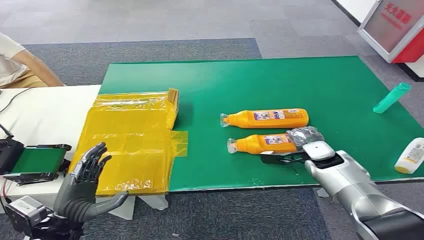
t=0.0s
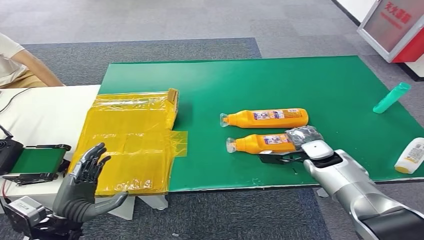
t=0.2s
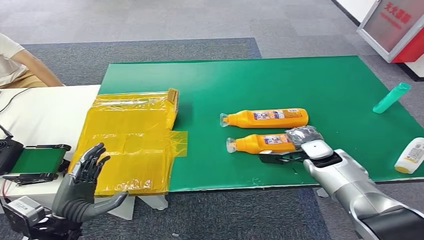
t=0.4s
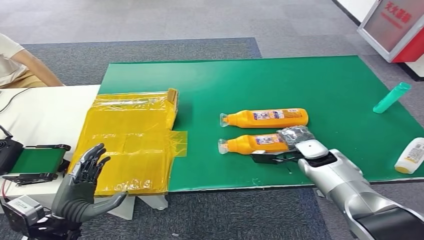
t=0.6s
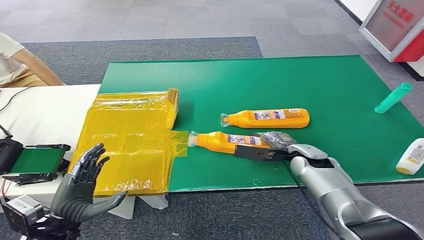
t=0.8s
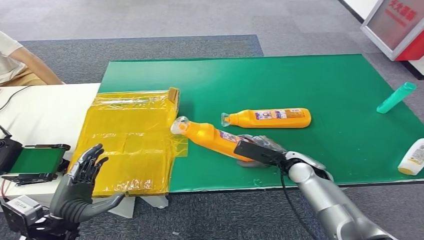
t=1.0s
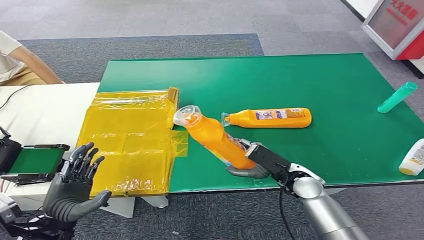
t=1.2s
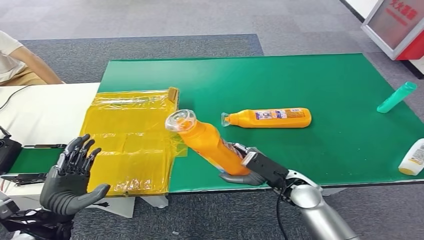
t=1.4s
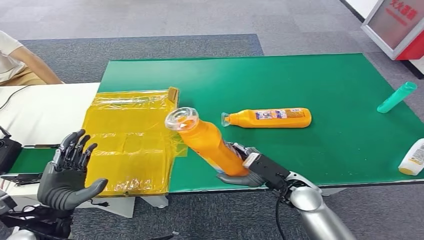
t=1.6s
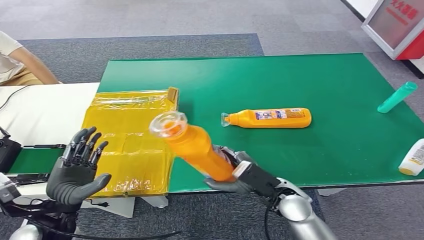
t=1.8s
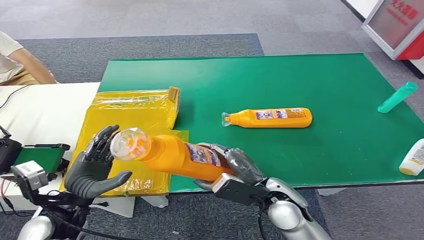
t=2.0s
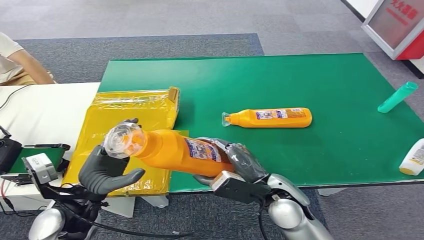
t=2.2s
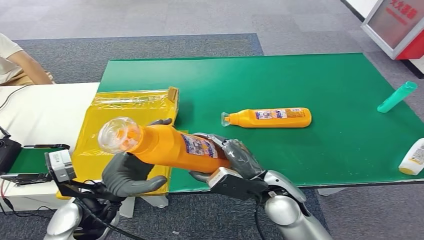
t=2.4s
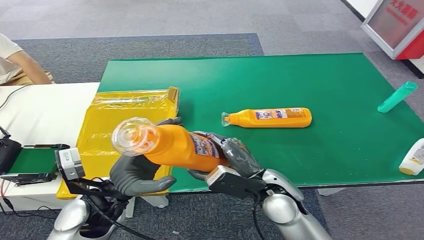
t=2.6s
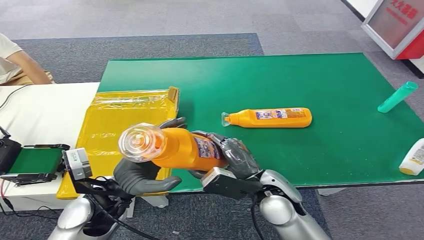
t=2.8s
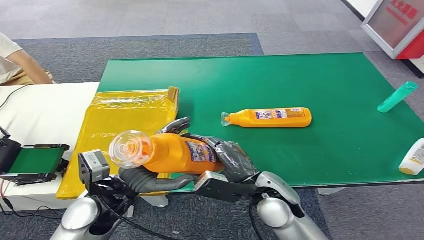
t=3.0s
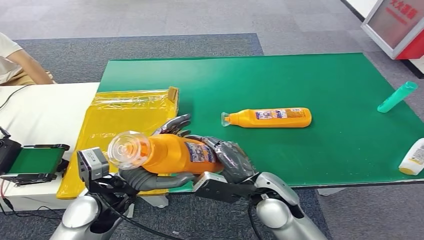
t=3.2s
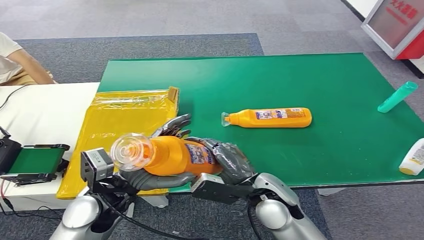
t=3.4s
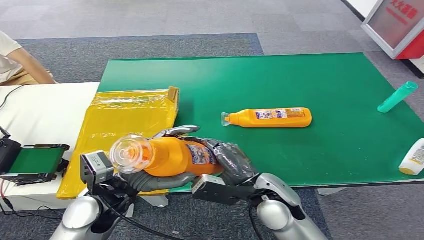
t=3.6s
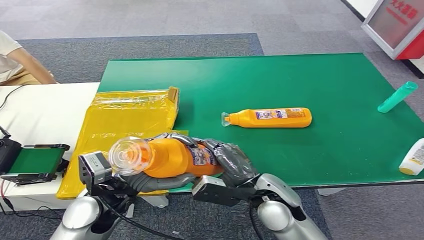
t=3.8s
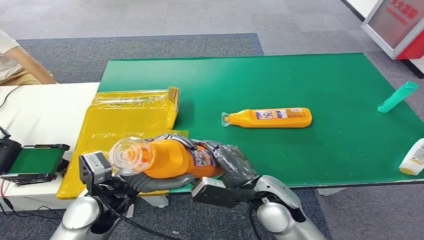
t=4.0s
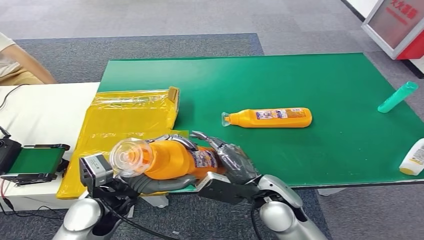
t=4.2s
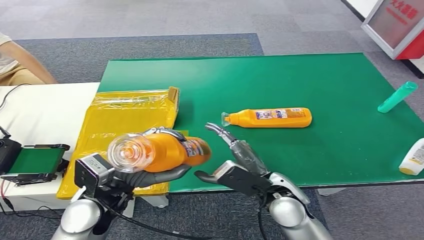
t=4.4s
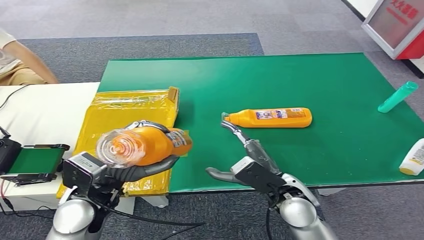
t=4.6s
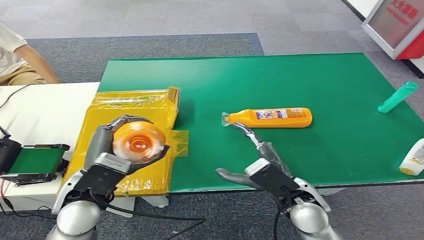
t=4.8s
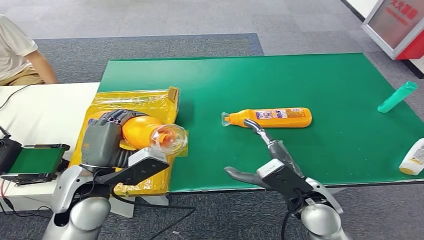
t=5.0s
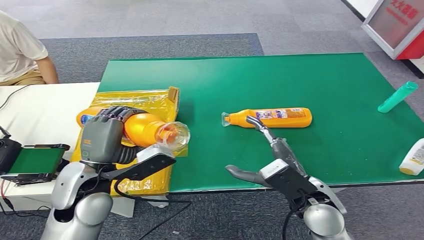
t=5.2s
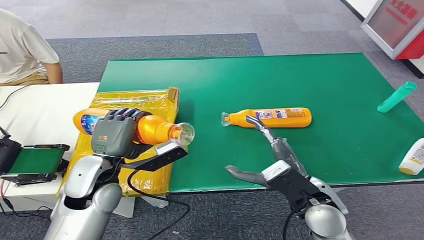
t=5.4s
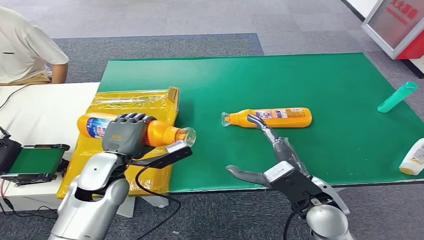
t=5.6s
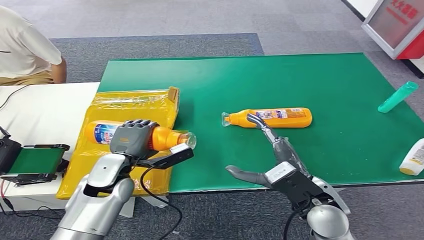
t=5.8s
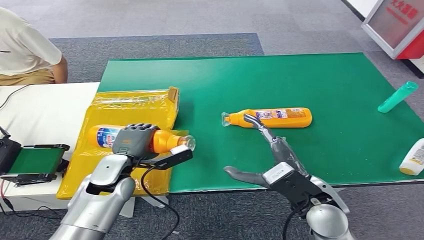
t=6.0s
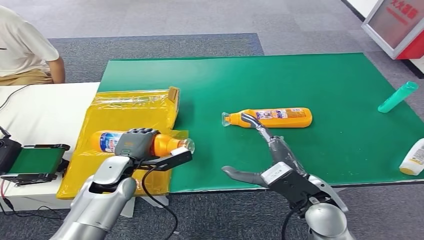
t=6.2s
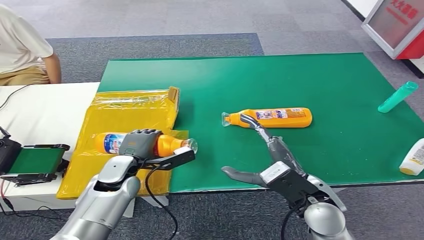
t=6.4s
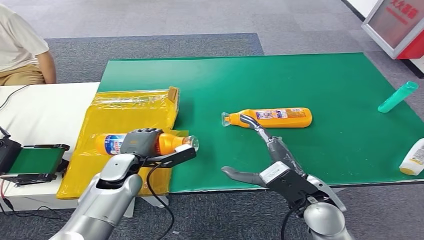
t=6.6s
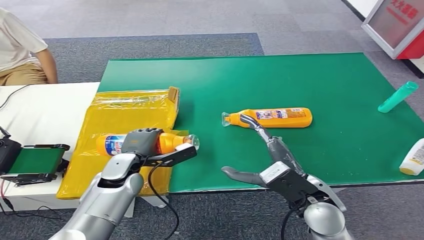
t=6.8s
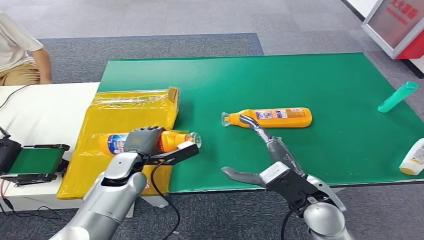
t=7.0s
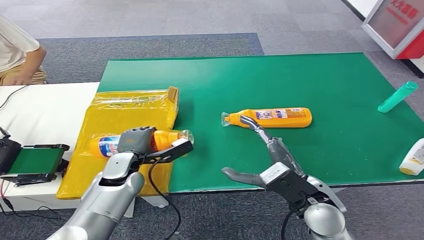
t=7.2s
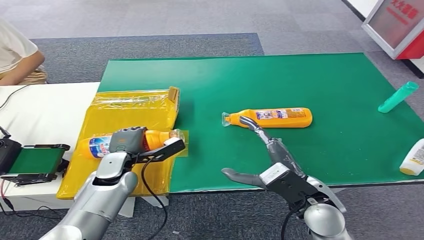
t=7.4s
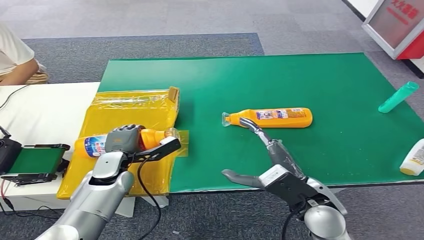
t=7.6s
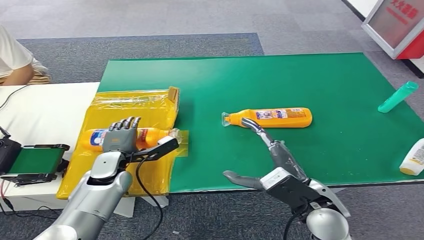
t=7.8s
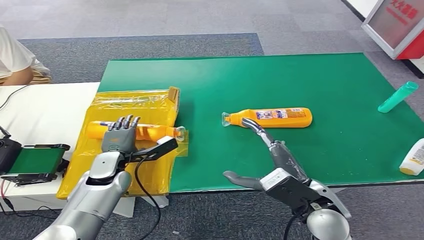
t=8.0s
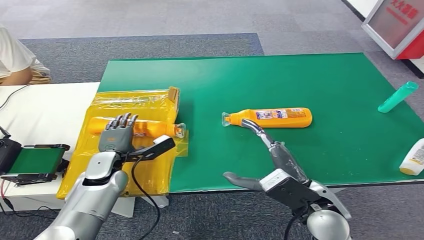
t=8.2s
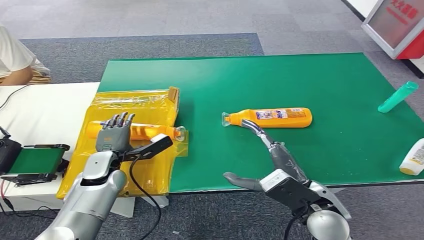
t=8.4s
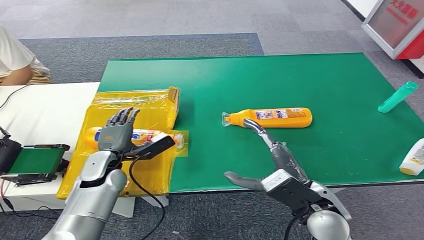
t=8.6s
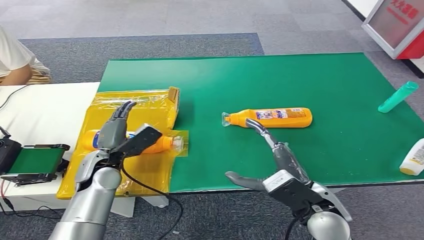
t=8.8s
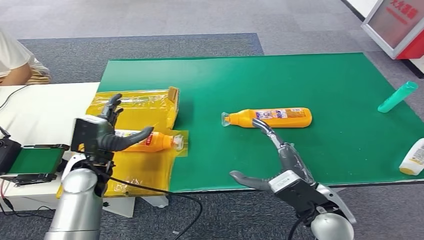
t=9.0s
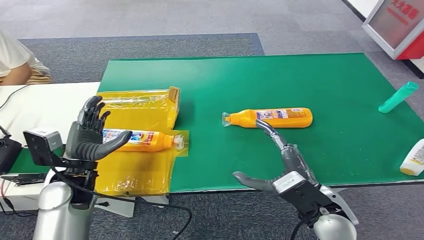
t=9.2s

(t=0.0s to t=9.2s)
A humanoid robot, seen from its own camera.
Step, t=0.0s - t=1.6s: Pick up the bottle from the table.
Step, t=3.6s - t=9.2s: Turn the bottle to the front side.
t=4.6s - t=6.2s: The left hand shifts some 15 cm downward and forward.
t=6.2s - t=7.6s: The hands stay close to where they were, moving slightly.
t=7.6s - t=9.2s: The left hand is displaced upward and backward by some 10 cm.

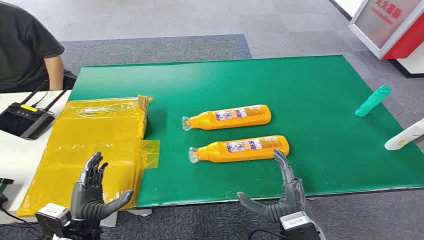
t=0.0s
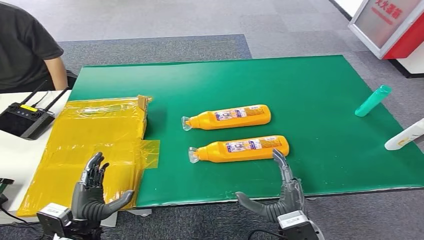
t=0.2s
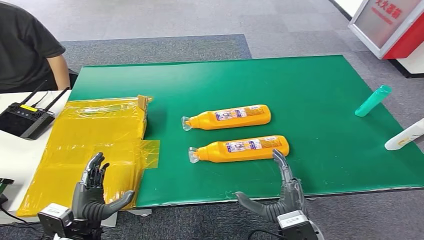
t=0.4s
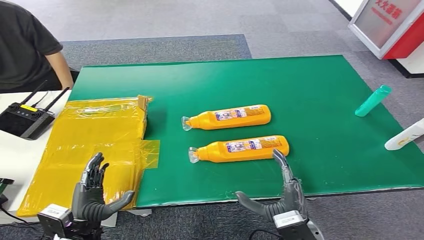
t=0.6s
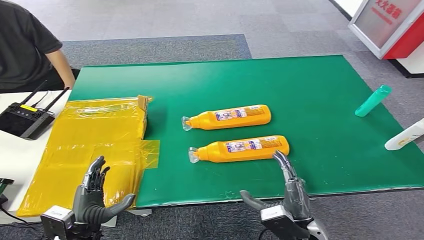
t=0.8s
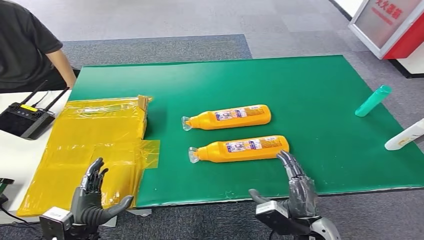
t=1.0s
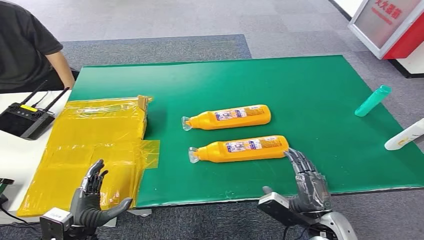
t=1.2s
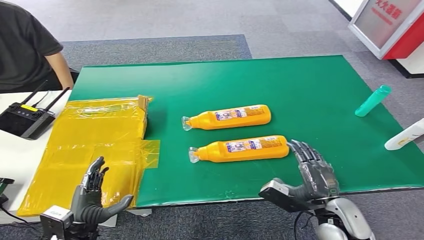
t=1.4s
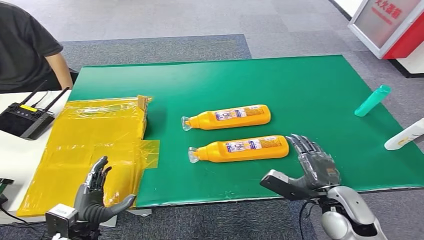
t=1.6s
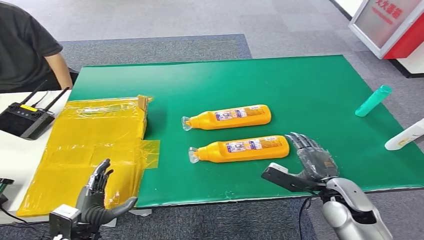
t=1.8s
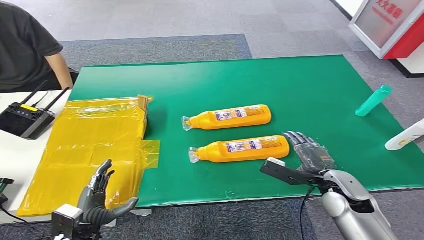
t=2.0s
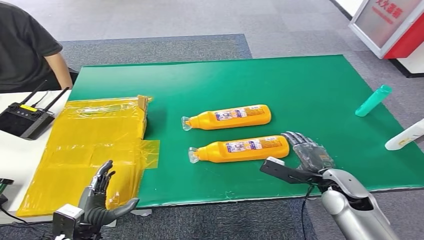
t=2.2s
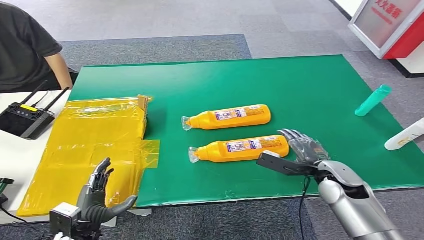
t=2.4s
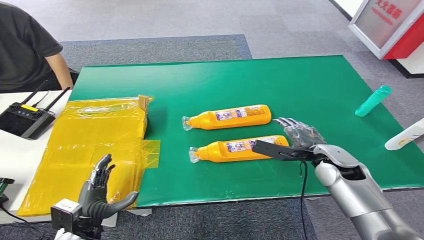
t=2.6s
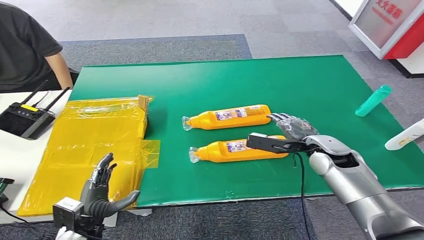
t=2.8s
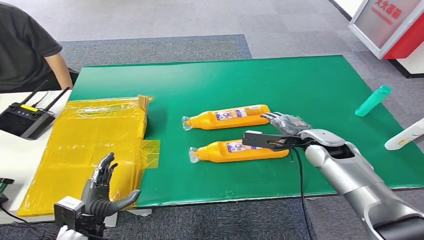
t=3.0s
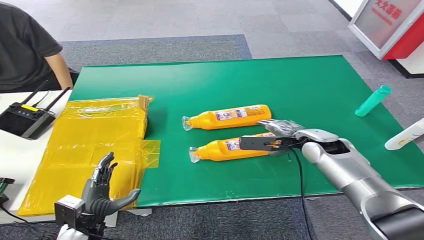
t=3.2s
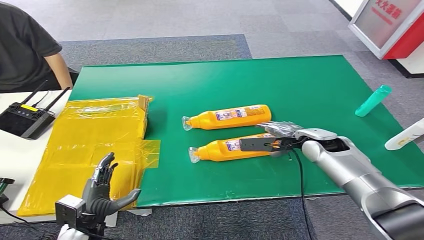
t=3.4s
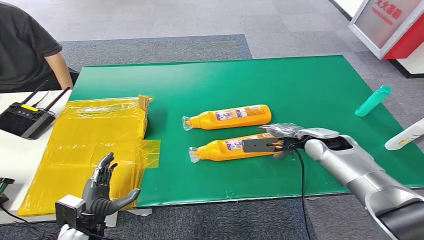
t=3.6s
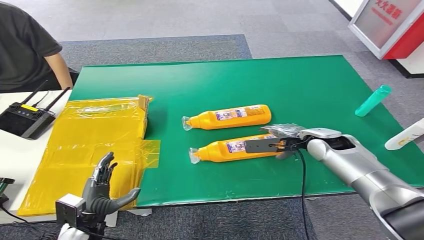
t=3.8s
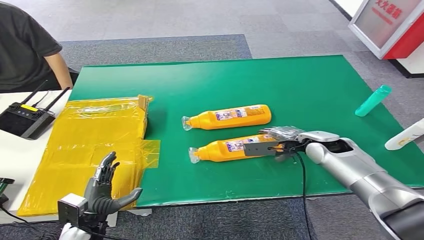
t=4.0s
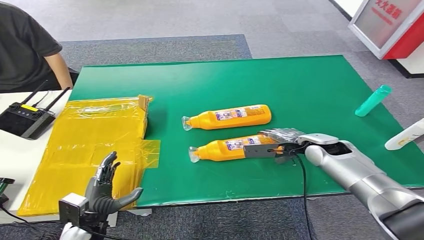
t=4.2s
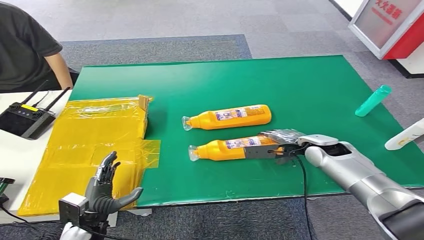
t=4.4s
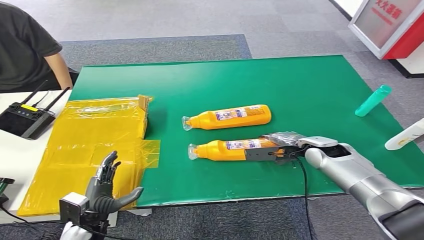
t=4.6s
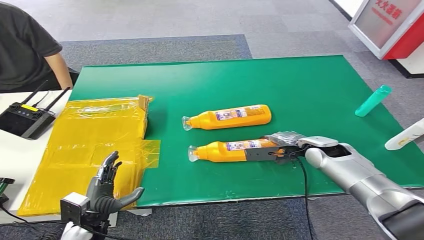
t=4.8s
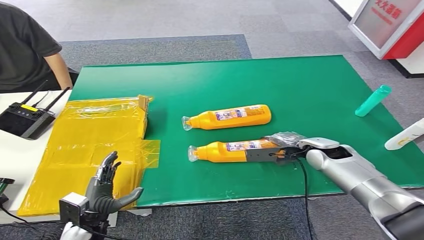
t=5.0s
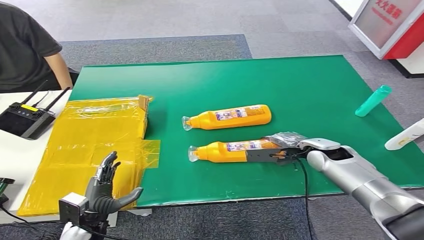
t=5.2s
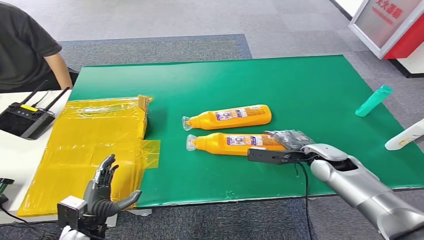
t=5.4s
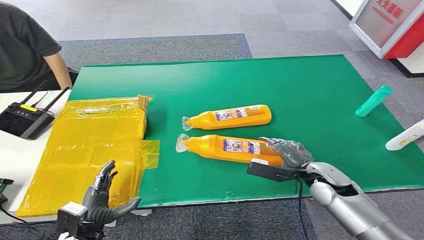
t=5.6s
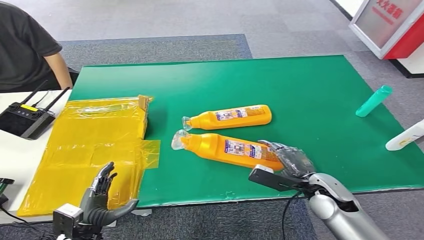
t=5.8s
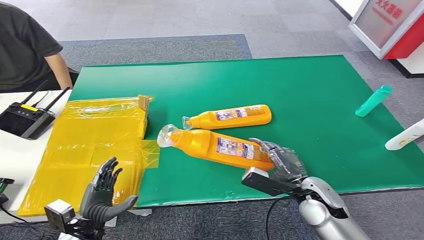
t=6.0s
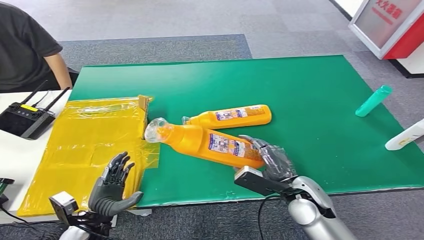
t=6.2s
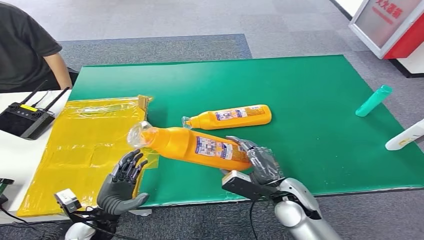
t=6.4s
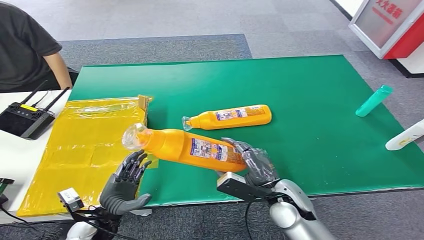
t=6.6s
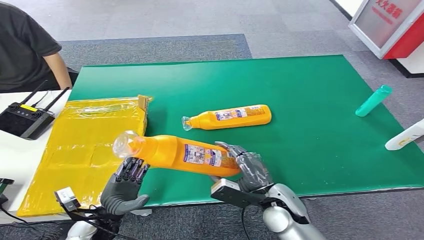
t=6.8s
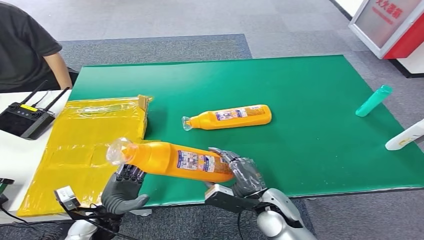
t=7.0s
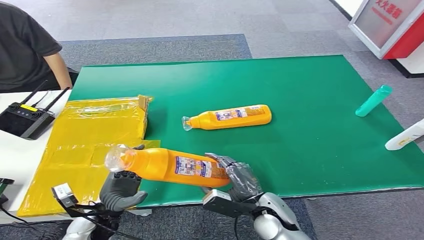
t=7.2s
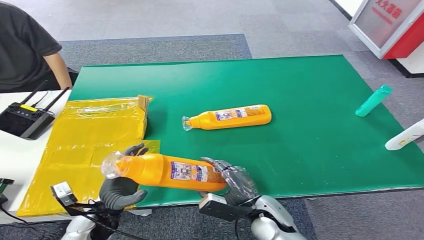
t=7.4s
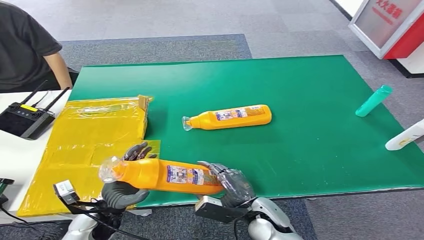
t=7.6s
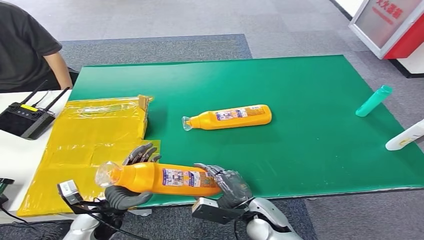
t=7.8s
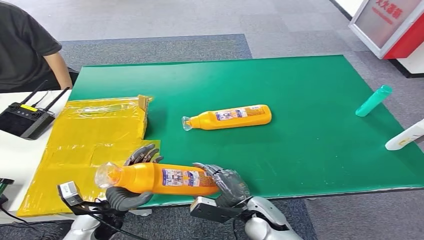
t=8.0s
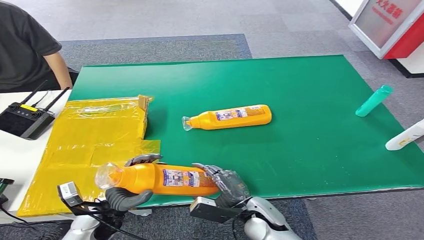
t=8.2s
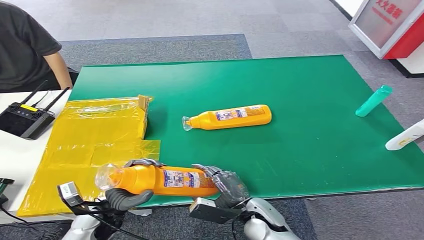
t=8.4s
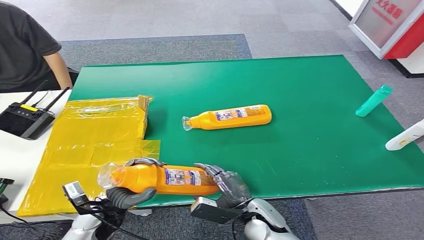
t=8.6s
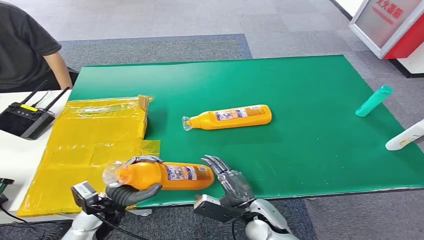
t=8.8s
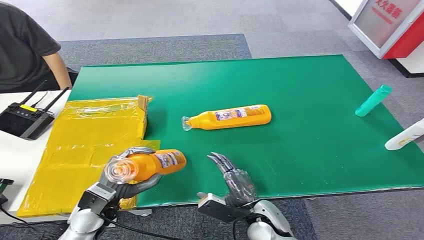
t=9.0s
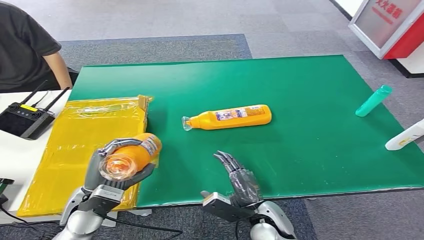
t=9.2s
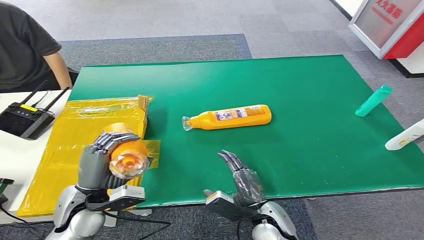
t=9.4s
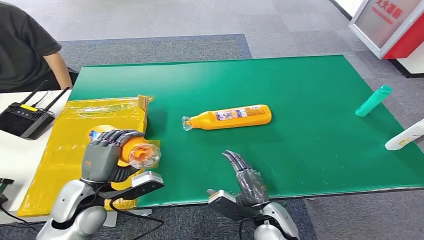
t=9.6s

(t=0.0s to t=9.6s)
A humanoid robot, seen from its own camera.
Step, t=0.0s - t=6.4s: Pick up the bottle from the table.
t=1.6s - t=3.2s: The right hand travels forward by some 20 cm.
t=3.2s - t=4.8s: The hands move only a little.
t=4.8s - t=6.4s: The right hand shifts approximately 20 cm backward and to the left.
t=6.4s - t=8.0s: The right hand goes about 10 cm downward and to the left.
t=8.0s - t=9.6s: The left hand is displaced upward by some 10 cm.
